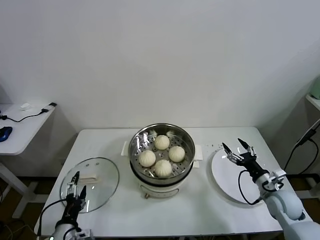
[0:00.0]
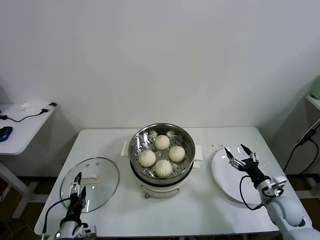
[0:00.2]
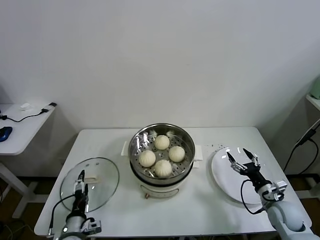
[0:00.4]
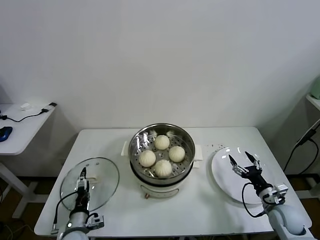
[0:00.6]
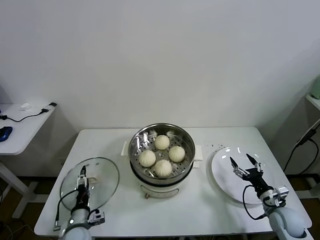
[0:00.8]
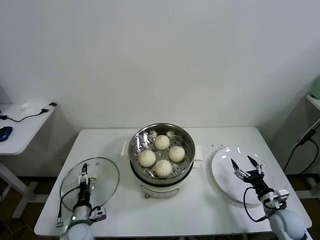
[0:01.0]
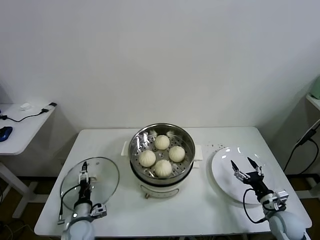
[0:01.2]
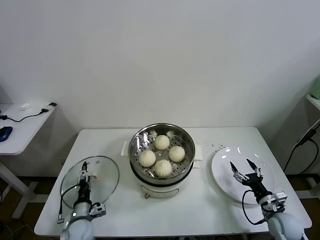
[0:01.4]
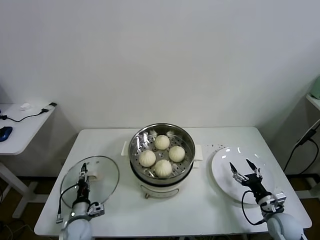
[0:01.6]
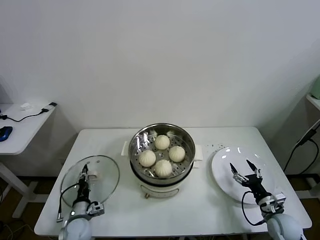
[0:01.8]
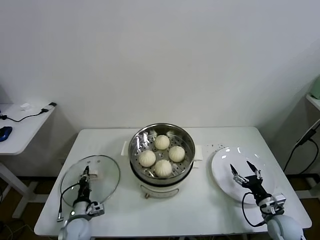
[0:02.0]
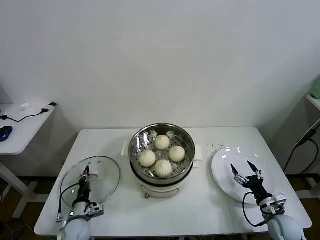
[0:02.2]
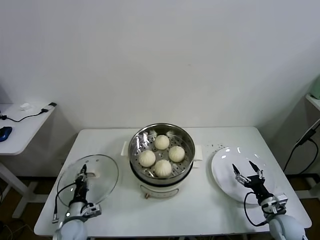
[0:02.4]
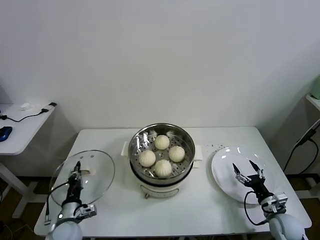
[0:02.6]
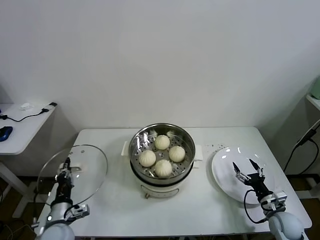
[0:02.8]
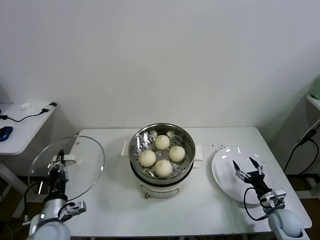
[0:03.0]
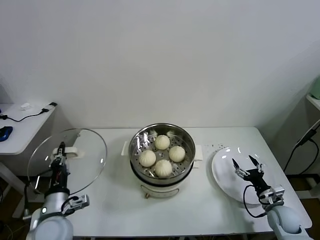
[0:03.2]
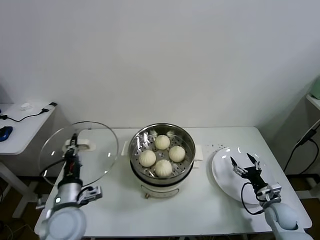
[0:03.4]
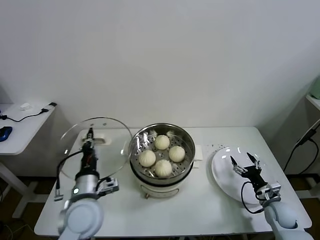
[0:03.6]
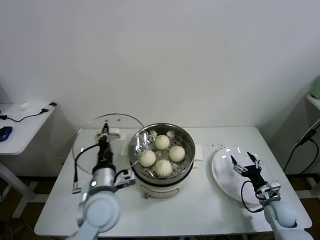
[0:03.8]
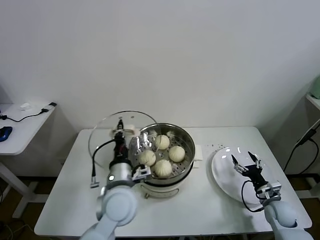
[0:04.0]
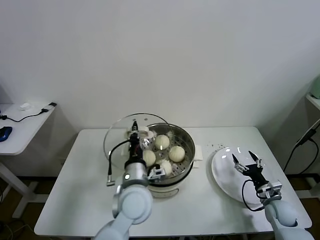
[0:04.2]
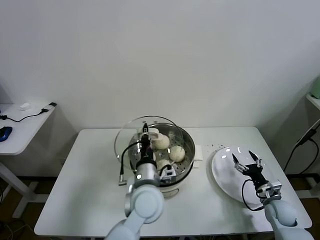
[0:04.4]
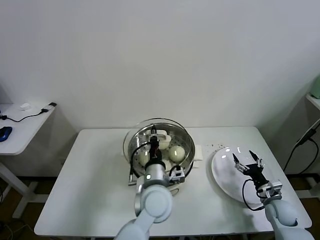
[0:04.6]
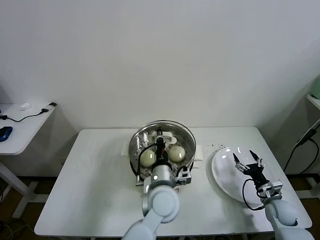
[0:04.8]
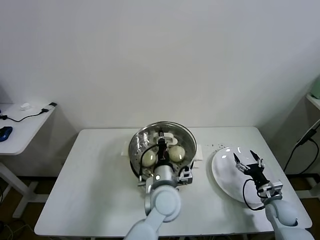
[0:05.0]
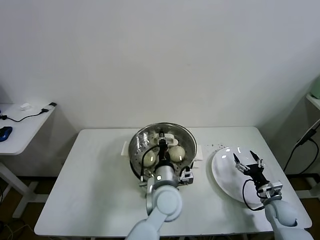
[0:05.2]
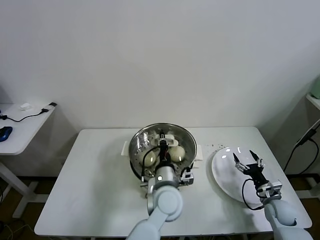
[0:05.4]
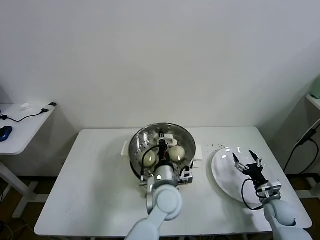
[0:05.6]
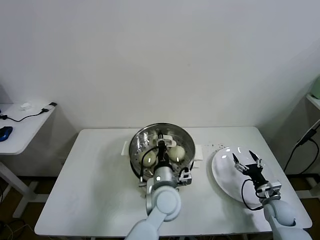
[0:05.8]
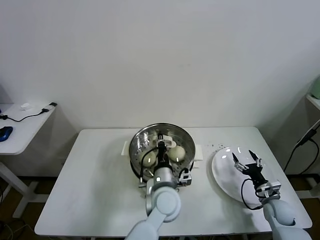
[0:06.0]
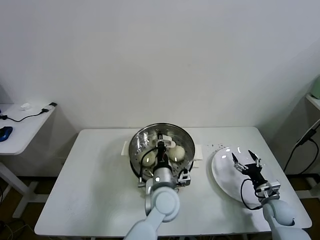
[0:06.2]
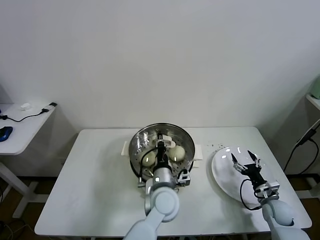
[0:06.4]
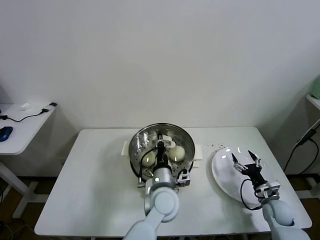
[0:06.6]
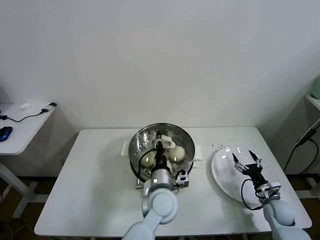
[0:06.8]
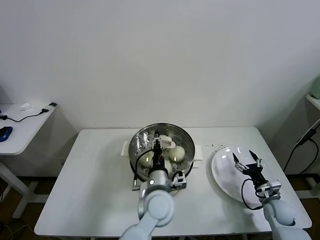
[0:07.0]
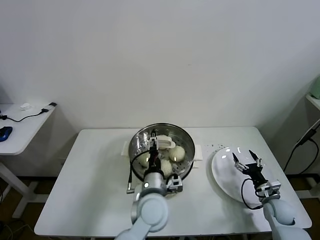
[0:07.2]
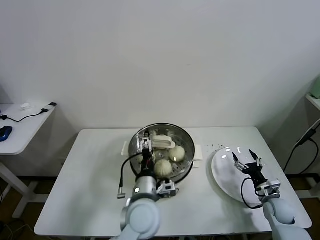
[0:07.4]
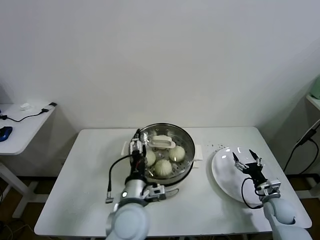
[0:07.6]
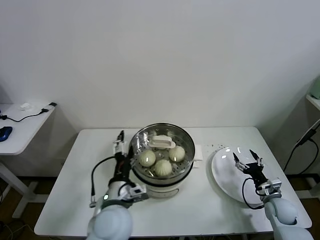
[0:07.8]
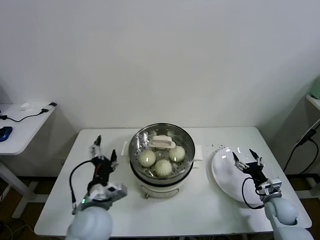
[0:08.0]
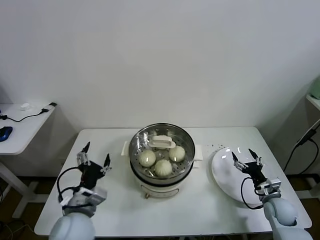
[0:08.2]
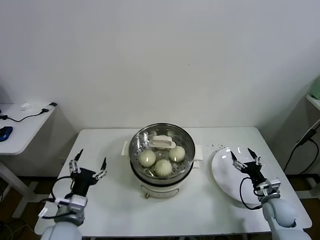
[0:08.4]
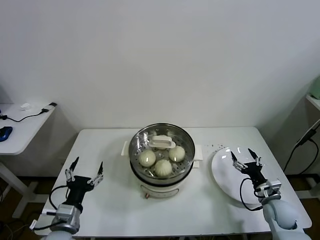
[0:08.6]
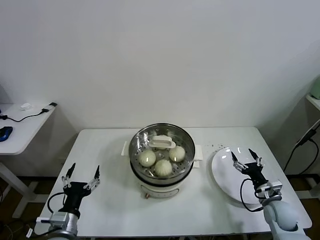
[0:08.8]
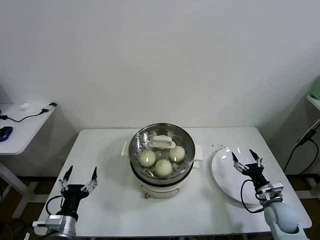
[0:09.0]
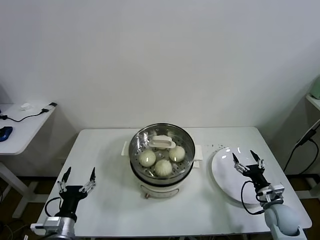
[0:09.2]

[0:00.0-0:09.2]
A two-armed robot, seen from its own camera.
Task of the whole recording: take steamed baozi put them in steamer.
Step, 0.0 to 2.0 s: Grasp the pot lid with left gripper.
Step, 2.2 to 7.2 s: Place the pot lid on the steamer with left gripper.
0.0 to 1.6 s: The right gripper heads downward and backward, covering roughly 10 cm. Meanwhile the left gripper travels downward and forward by approximately 15 cm, and closes.
1.6 to 3.0 s: The left gripper heads upward, covering about 15 cm, and closes.
3.0 to 4.6 s: The left gripper is displaced to the right by about 30 cm.
4.6 to 6.2 s: The left gripper changes place by roughly 5 cm.
6.2 to 7.6 s: The left gripper goes roughly 10 cm to the left and backward, and opens.
7.6 to 9.2 s: The right gripper shifts by about 5 cm. The left gripper moves to the left and downward, some 25 cm.

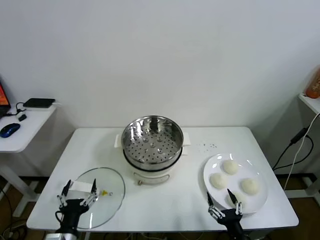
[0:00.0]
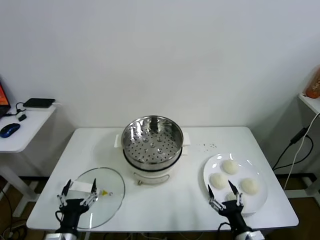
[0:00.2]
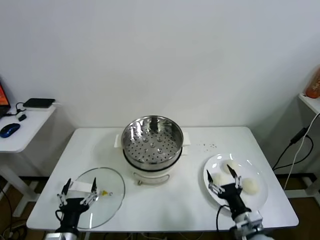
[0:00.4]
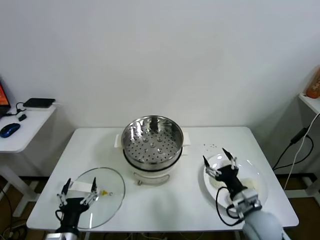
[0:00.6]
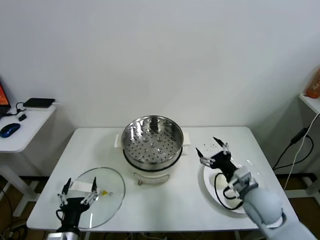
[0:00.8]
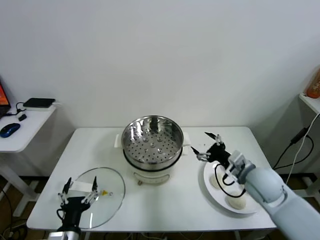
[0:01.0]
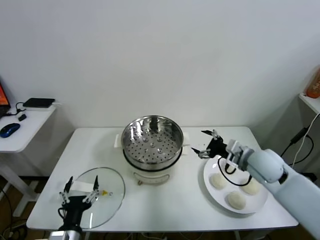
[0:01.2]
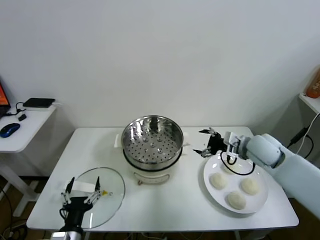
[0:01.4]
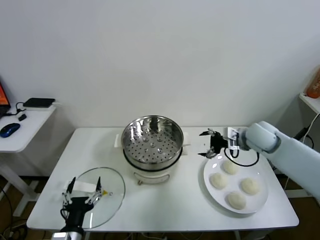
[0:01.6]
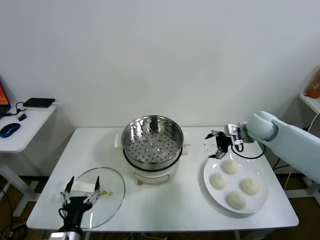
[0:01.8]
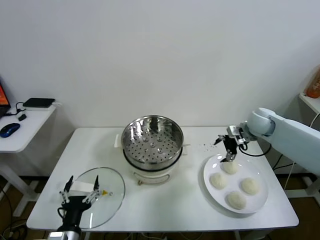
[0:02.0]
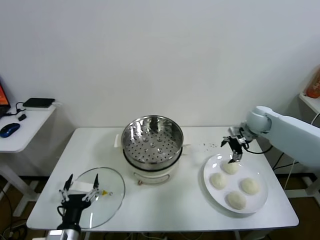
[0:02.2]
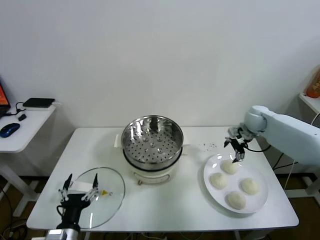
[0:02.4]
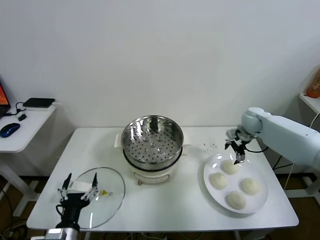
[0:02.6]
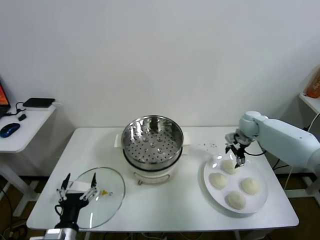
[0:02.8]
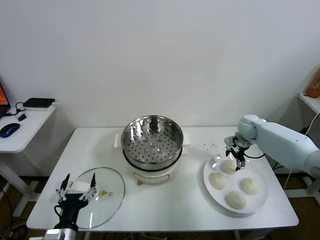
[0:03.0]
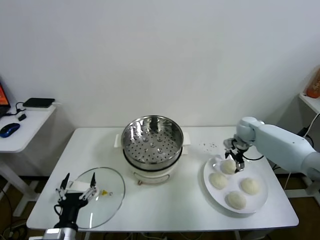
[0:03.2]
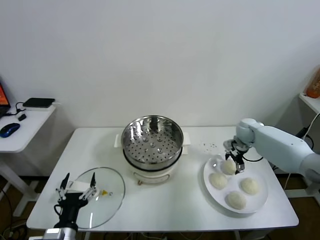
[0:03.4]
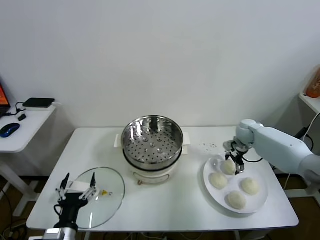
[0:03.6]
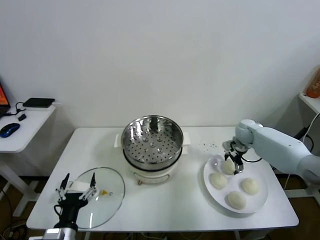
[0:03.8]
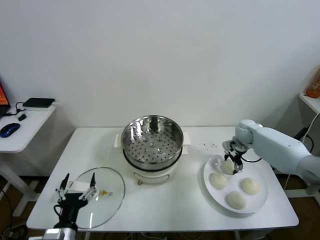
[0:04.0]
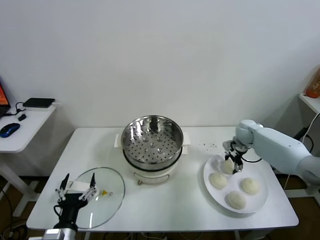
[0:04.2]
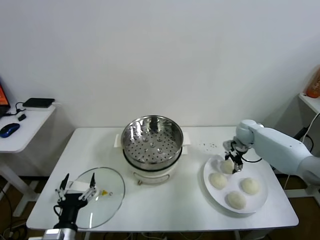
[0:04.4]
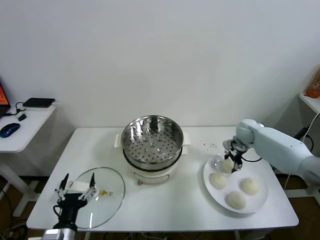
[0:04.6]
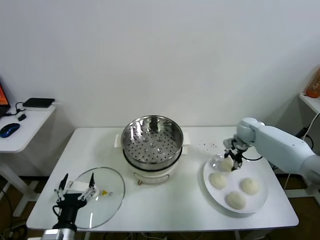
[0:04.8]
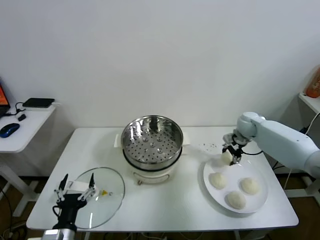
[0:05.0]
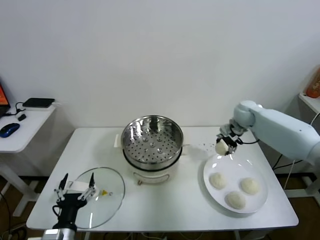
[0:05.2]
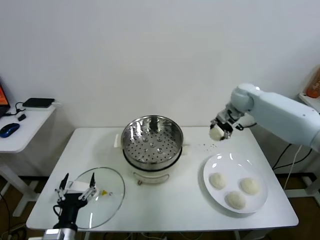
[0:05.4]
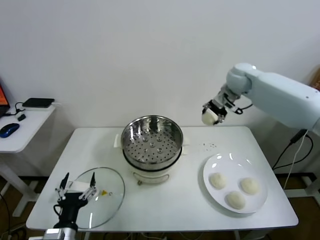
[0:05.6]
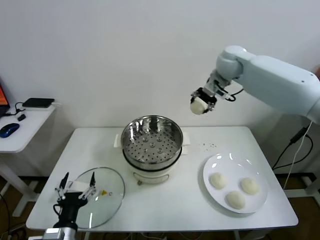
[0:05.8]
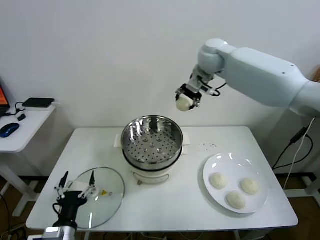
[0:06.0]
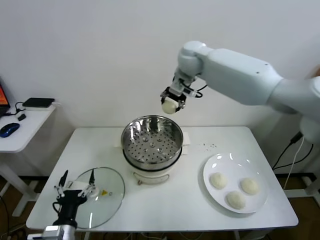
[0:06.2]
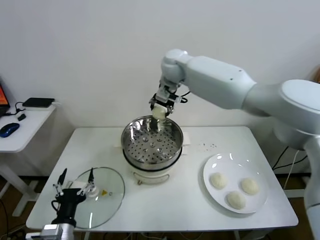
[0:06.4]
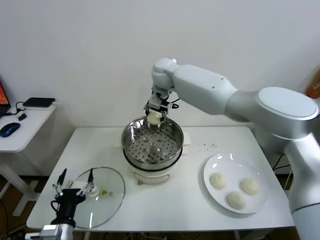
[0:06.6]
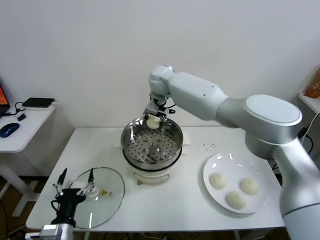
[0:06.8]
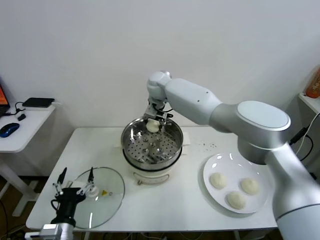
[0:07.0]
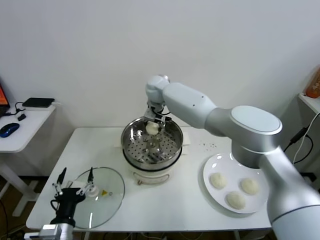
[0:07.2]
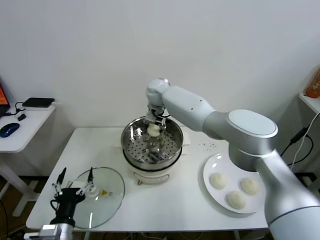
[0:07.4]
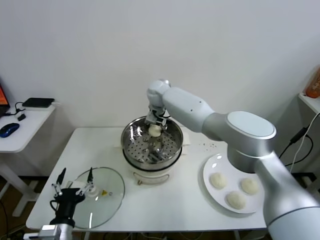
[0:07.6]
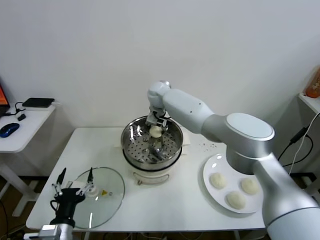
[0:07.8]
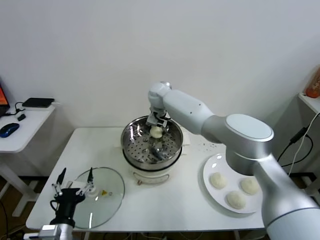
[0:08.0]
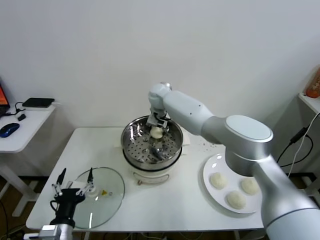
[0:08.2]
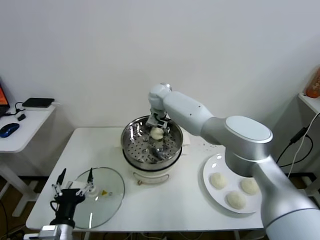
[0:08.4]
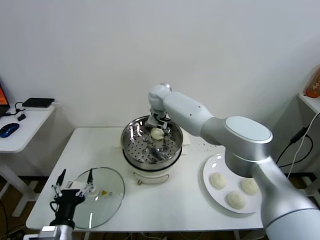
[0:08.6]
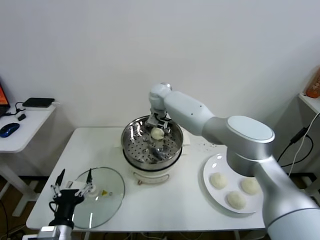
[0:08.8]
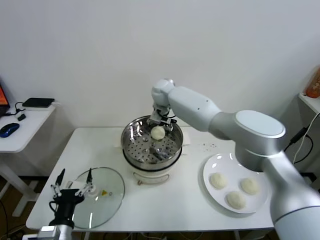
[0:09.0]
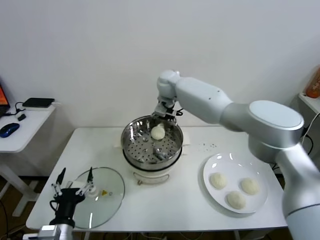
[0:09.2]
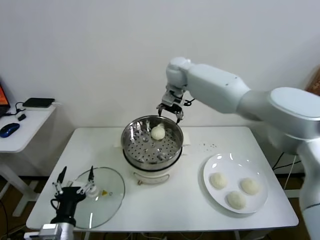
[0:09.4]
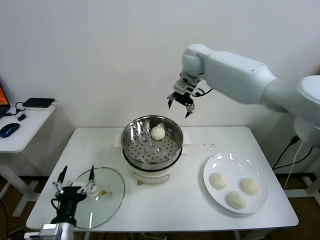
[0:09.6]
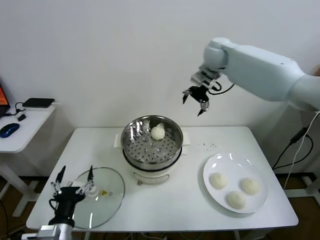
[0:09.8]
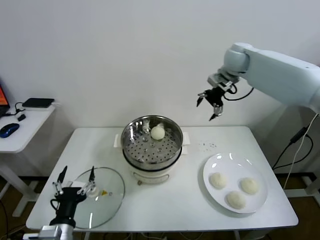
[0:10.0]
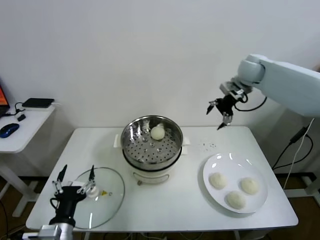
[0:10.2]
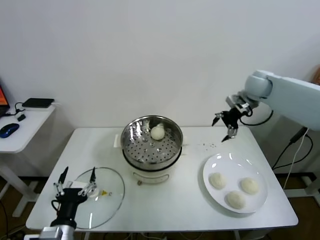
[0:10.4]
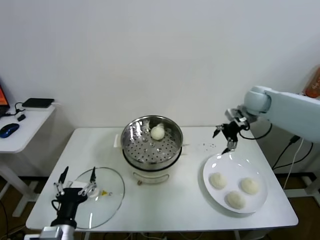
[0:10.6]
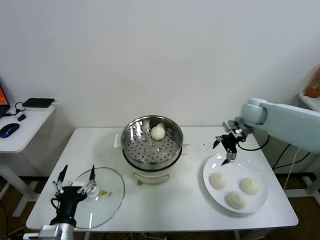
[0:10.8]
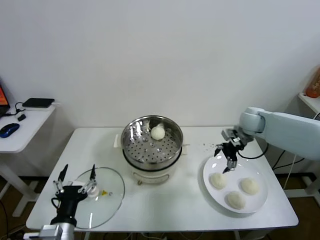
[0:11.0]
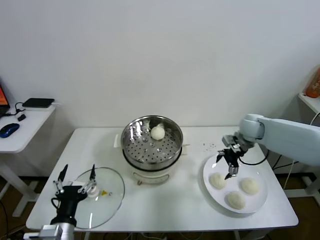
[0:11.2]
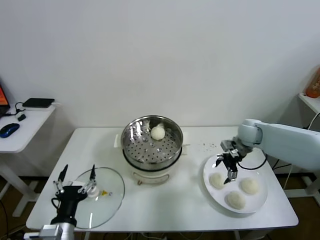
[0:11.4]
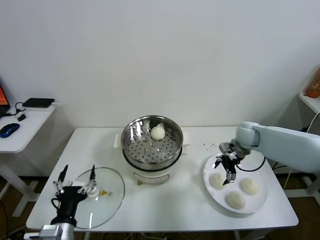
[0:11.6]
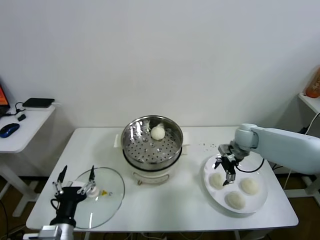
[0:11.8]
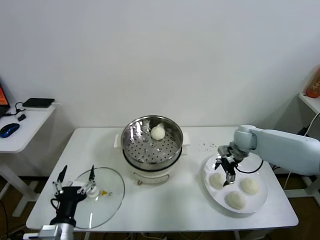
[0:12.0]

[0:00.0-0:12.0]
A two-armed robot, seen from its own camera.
Task of the whole recording: take steamed baozi put them in steamer.
Step, 0.0 to 4.2 s: Grasp the baozi in the plate with right gripper.
Step, 4.4 to 8.8 s: Place the baozi on the steamer with right gripper.
1.6 to 3.0 s: The right gripper heads forward and downward, covering some 10 cm.
3.0 to 4.4 s: The right gripper closes.
4.4 to 6.0 s: The right gripper heads upward and to the left, covering some 40 cm.
6.0 to 7.6 s: The right gripper shifts some 20 cm downward and to the left.
7.6 to 9.0 s: The right gripper opens its fingers.
9.0 to 10.4 s: The right gripper goes some 30 cm to the right.
10.4 to 12.0 s: The right gripper travels downward by some 20 cm.

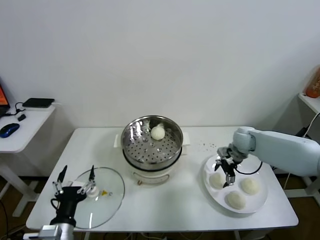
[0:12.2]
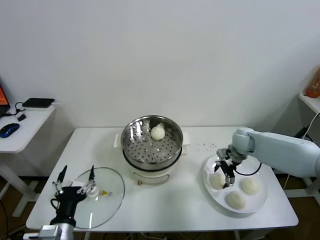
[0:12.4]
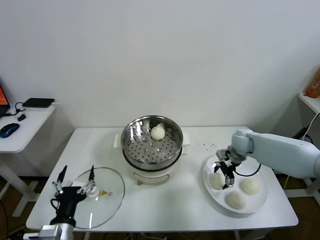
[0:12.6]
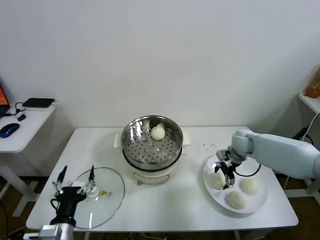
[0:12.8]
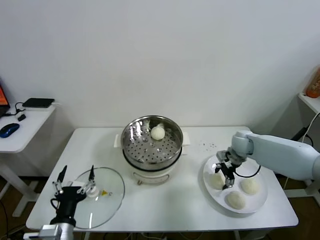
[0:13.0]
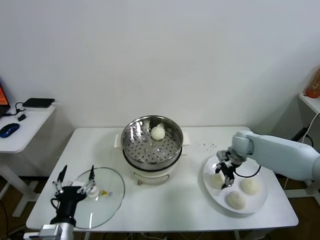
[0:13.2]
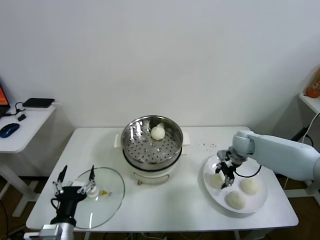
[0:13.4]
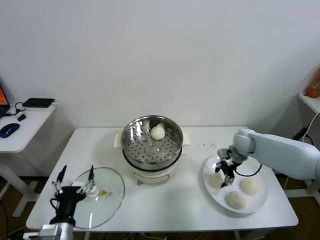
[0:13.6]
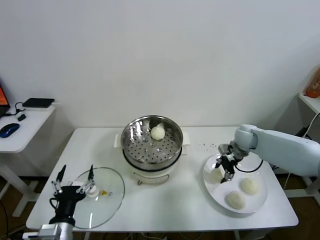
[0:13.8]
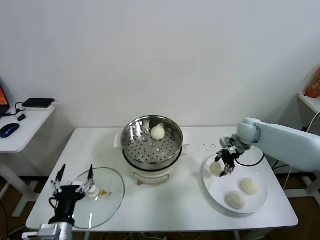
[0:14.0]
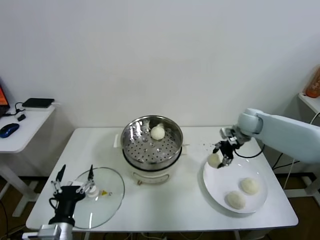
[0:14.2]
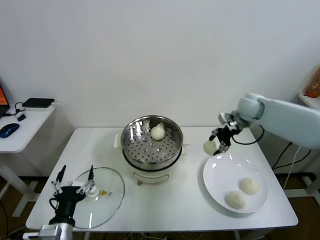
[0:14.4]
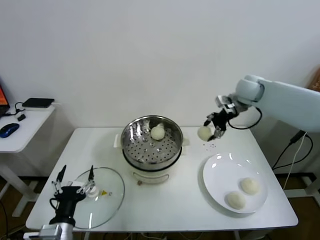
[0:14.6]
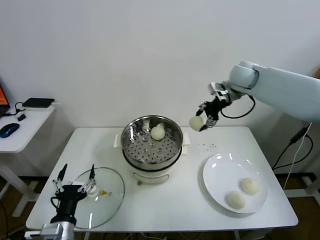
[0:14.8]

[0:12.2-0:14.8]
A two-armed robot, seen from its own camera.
Task of the whole recording: take steamed baozi put them in steamer.
12.2 to 13.4 s: The right gripper closes its fingers.
13.4 to 14.8 s: The right gripper travels upward by about 25 cm.
